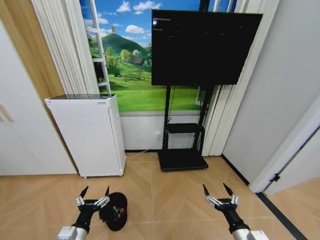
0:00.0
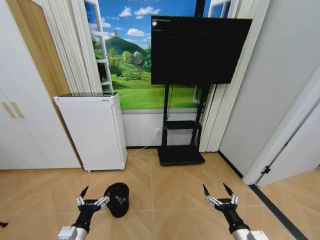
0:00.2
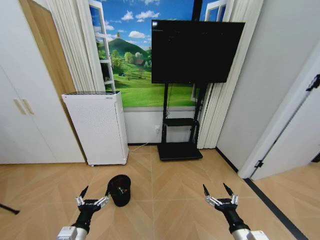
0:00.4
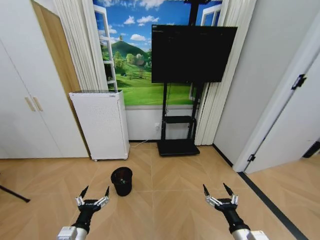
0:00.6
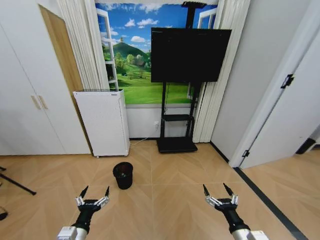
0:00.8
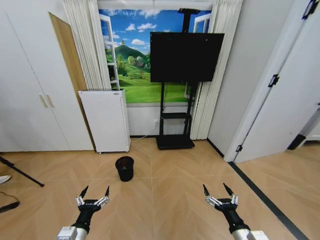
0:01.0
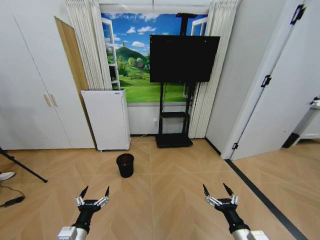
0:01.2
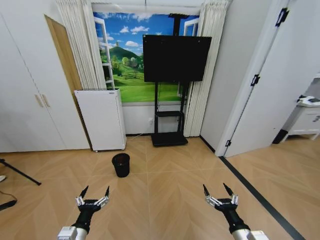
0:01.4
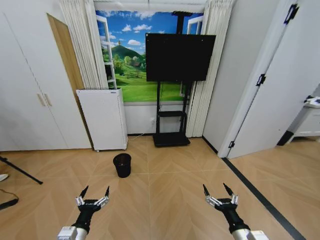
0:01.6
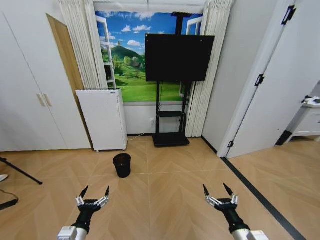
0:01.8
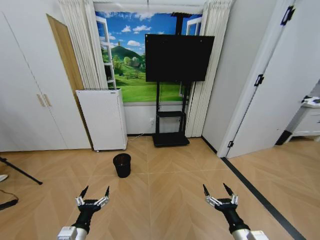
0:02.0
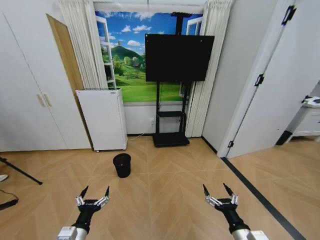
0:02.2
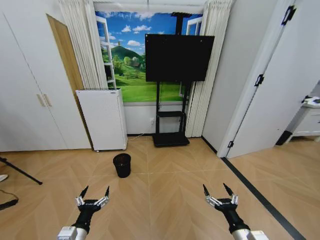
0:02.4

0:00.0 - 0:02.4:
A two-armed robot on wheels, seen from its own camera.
Task of the whole recording: Pick up the trash bin and place the garbage on the floor into it.
0:01.2 - 0:02.4: The two grippers keep their place.

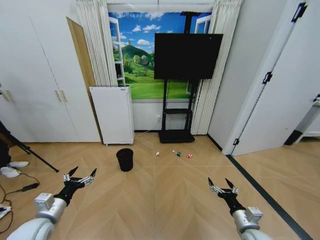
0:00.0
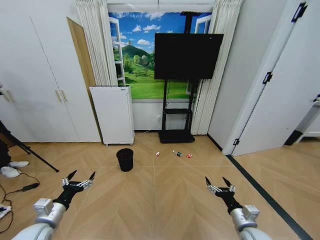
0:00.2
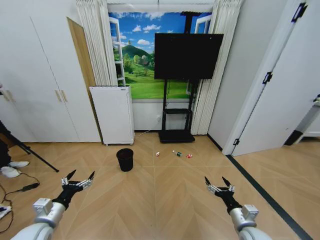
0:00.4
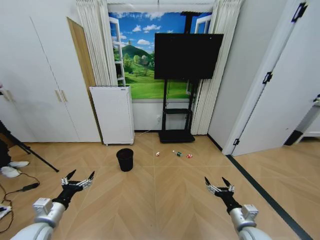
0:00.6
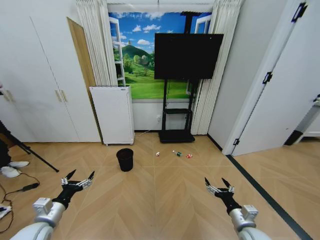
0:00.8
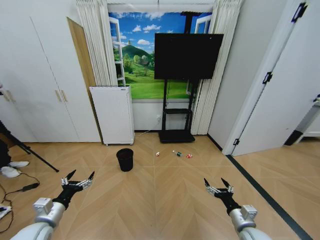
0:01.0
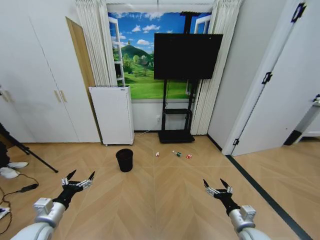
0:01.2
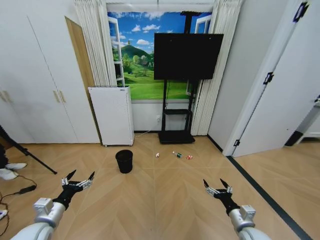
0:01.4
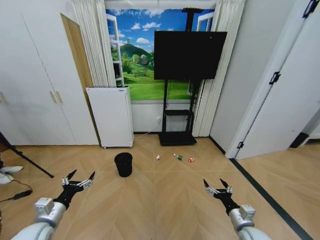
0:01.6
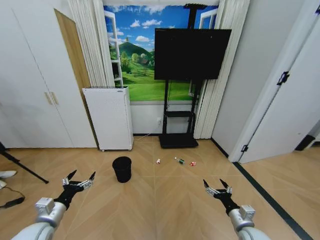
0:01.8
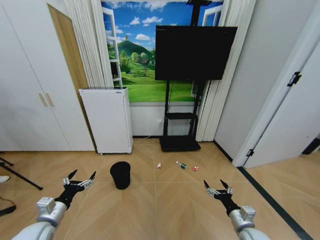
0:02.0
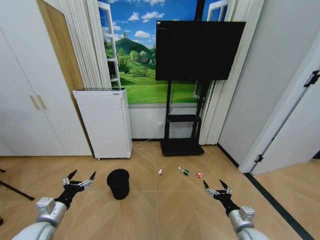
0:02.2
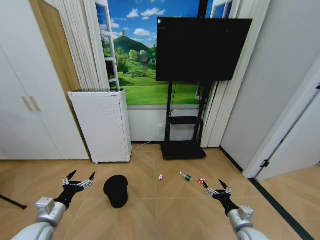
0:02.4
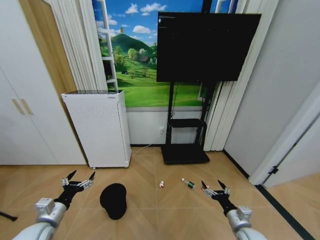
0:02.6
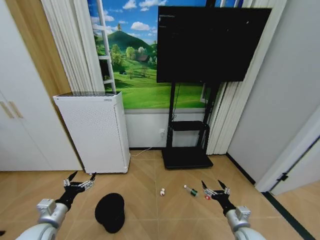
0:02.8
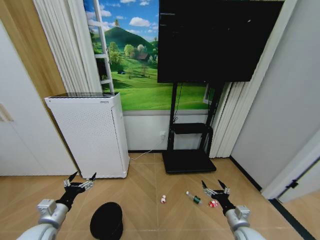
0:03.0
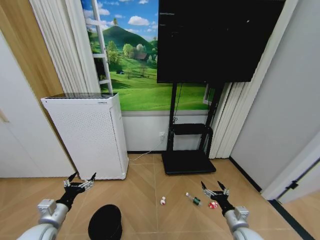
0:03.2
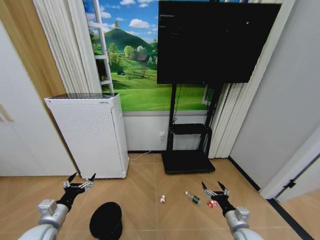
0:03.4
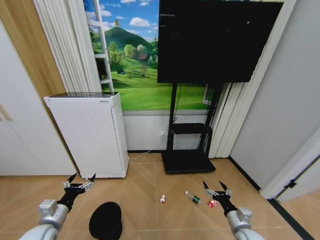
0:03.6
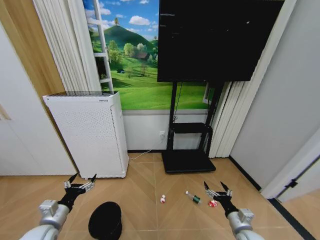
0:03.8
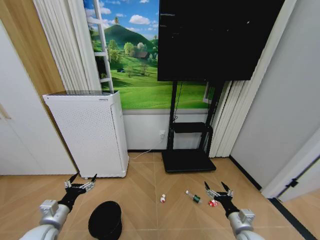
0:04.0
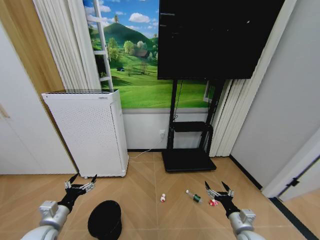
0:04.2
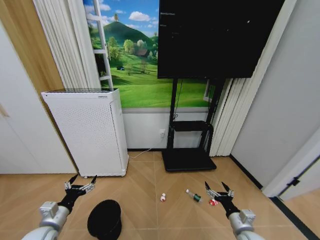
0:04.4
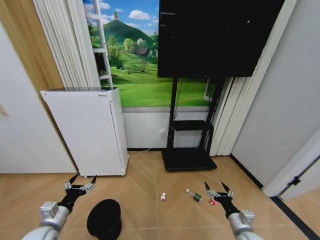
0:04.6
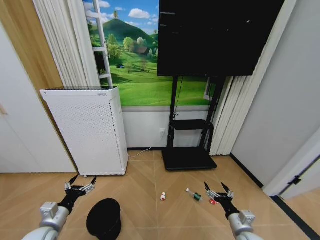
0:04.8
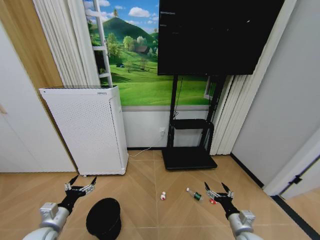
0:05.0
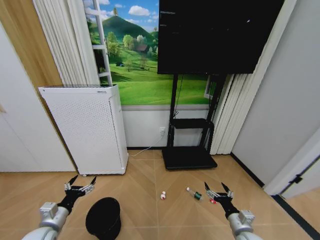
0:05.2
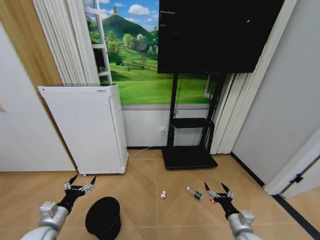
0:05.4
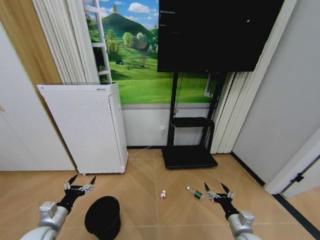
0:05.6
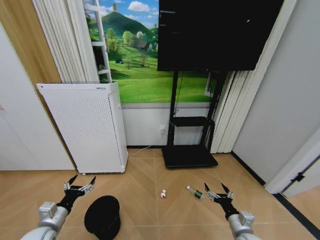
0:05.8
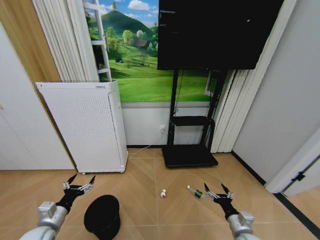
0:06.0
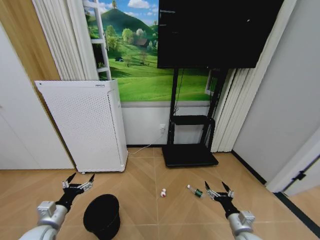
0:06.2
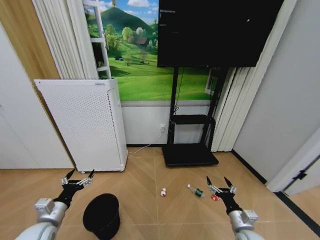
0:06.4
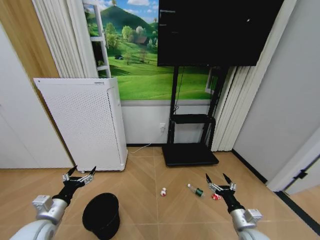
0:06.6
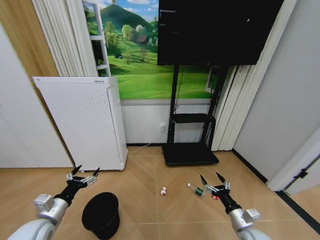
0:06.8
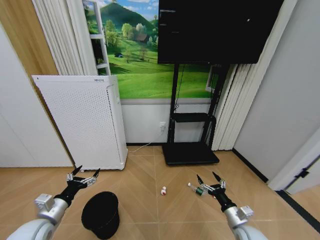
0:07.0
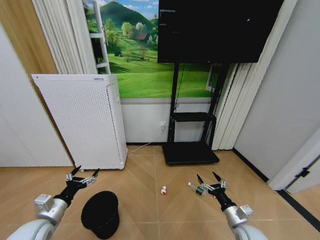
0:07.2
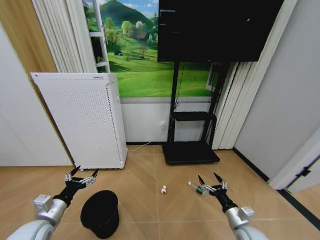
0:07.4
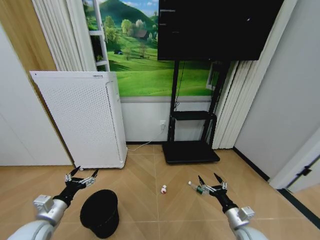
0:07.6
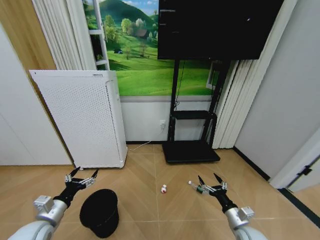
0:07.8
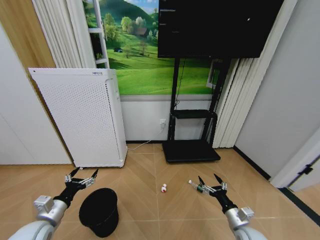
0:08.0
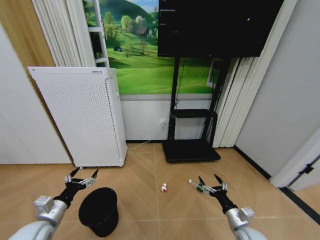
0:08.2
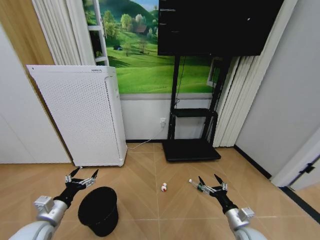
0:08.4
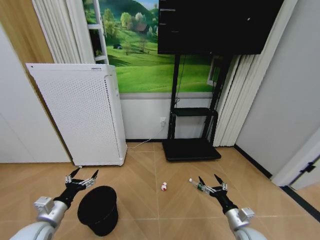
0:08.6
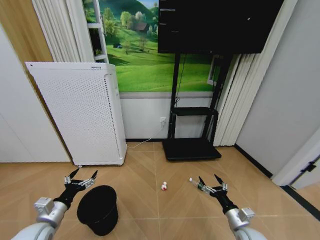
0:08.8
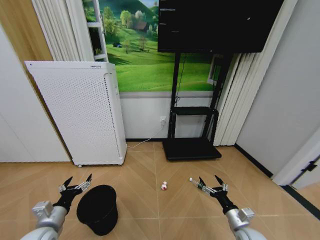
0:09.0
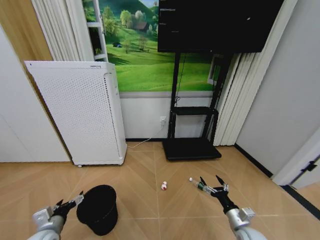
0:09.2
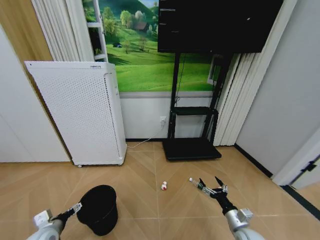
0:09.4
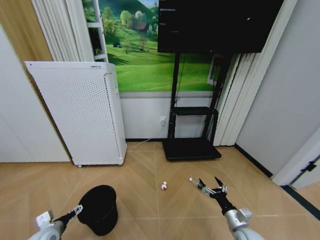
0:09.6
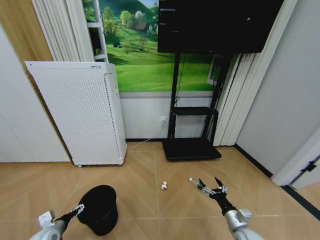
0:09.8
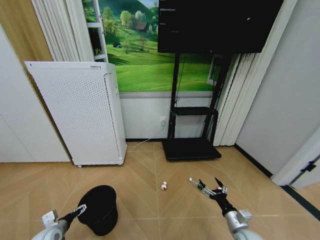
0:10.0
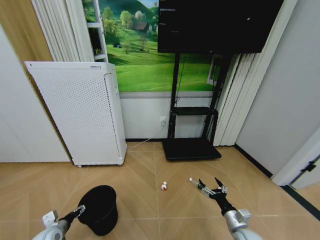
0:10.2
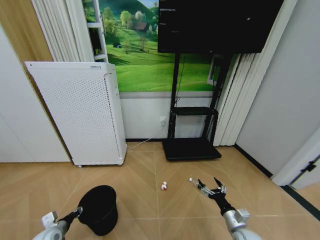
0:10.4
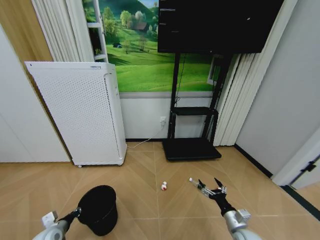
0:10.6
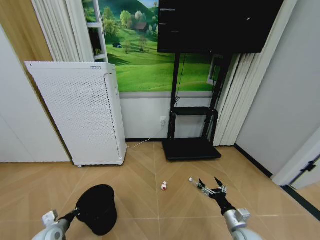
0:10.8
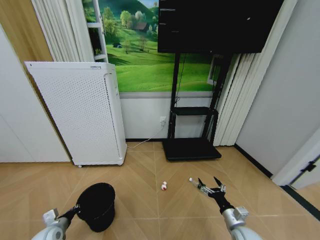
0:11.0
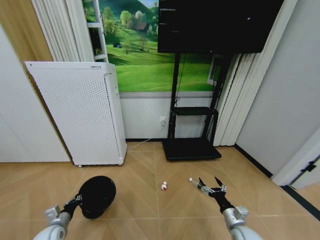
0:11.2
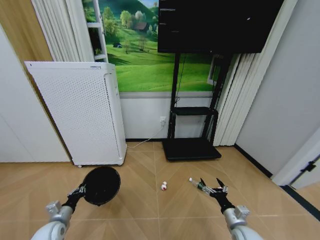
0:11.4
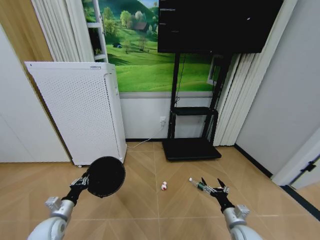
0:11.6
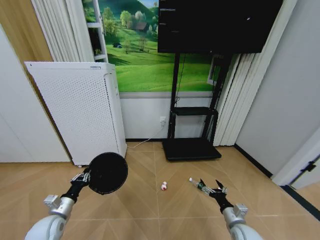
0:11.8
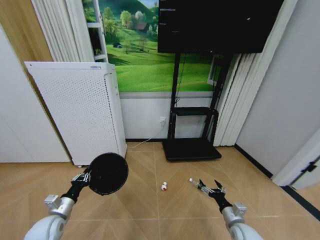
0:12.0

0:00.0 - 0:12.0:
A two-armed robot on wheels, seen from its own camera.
Task of the whole recording: Pick up the trash bin and place the garbage on the floor into it.
0:03.0 - 0:04.4: The two grippers keep their place.
0:04.4 - 0:06.0: Both grippers stay put.
0:06.0 - 0:07.6: The grippers stay close to where they were, moving slightly.
0:09.0 - 0:10.4: The left gripper travels downward and to the left by some 10 cm, and closes its fingers.
0:10.4 - 0:12.0: The left gripper is displaced upward by about 5 cm, and closes its fingers.

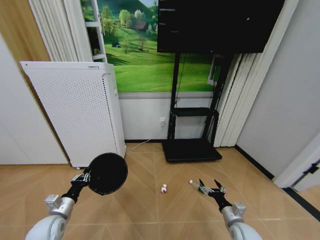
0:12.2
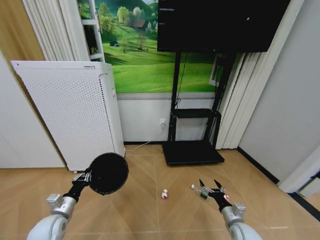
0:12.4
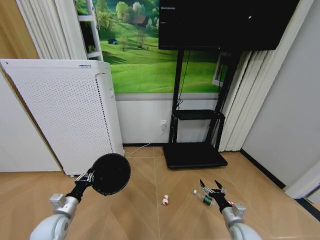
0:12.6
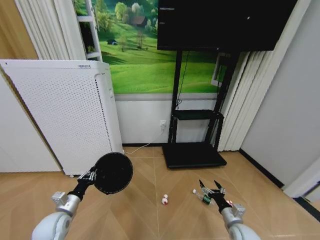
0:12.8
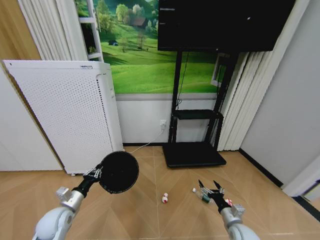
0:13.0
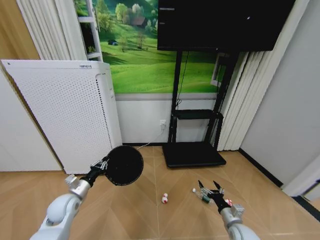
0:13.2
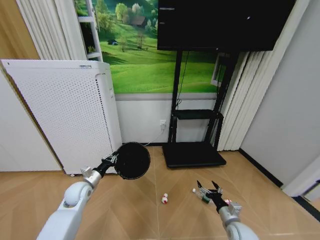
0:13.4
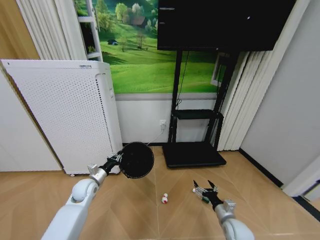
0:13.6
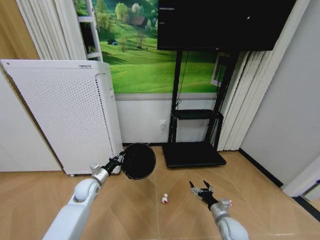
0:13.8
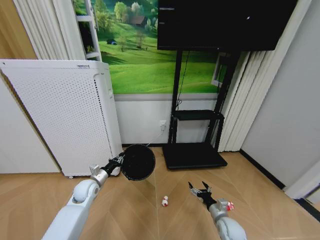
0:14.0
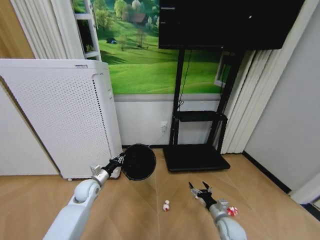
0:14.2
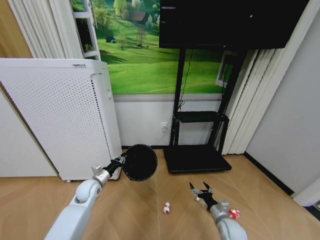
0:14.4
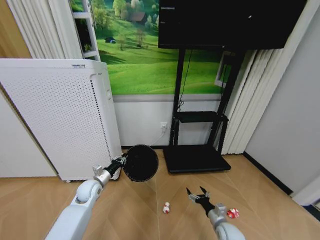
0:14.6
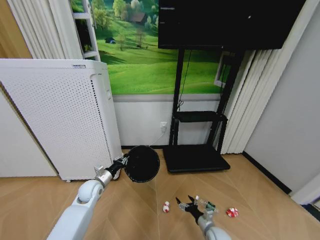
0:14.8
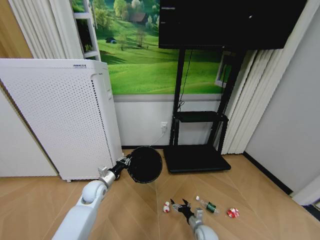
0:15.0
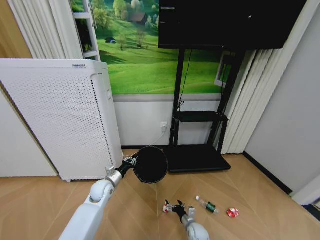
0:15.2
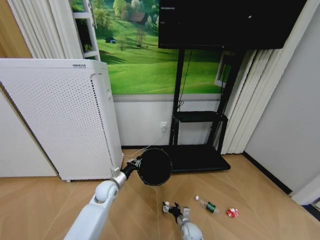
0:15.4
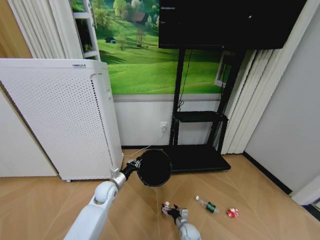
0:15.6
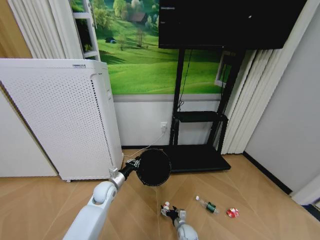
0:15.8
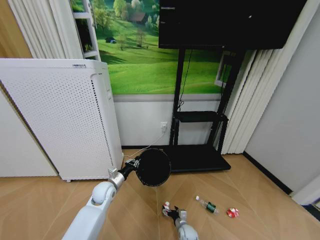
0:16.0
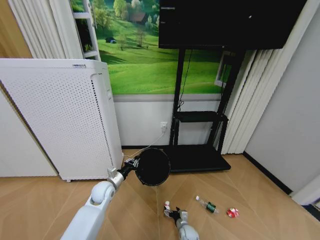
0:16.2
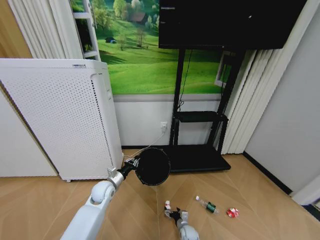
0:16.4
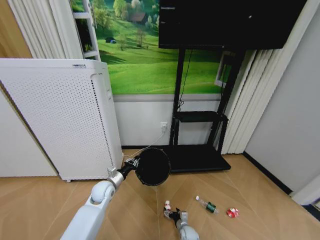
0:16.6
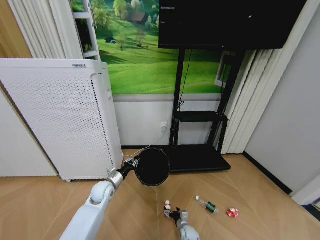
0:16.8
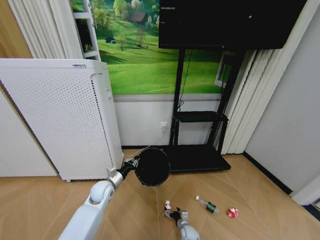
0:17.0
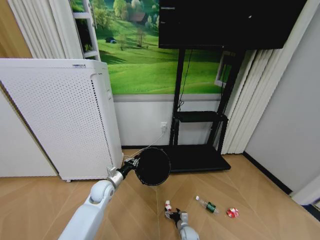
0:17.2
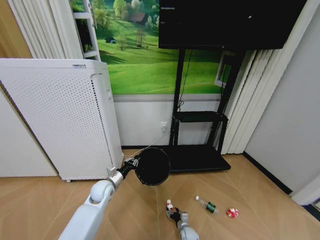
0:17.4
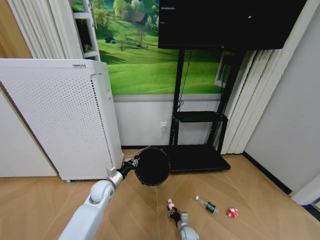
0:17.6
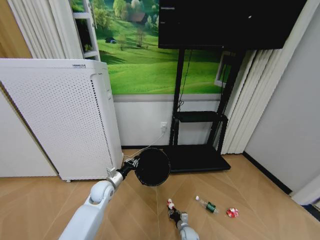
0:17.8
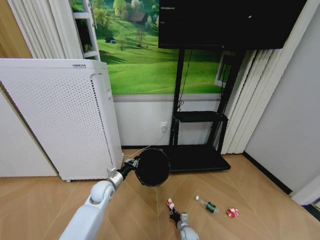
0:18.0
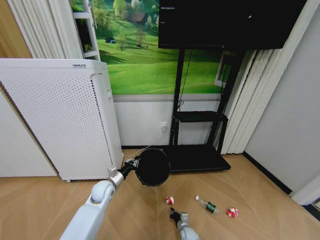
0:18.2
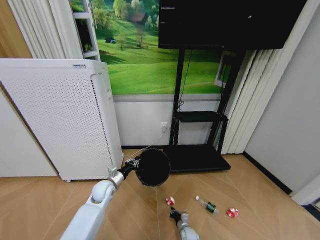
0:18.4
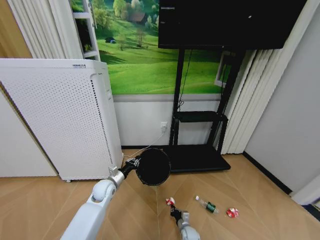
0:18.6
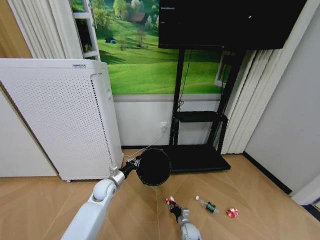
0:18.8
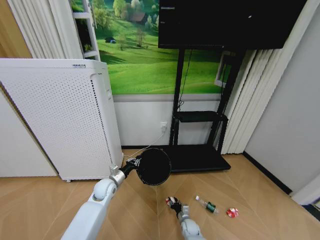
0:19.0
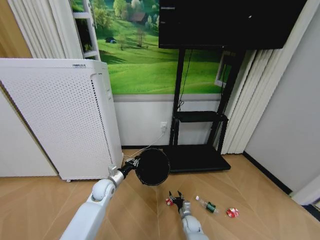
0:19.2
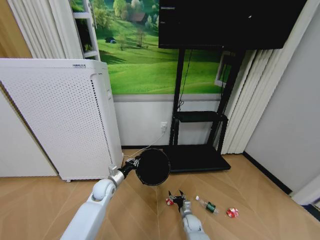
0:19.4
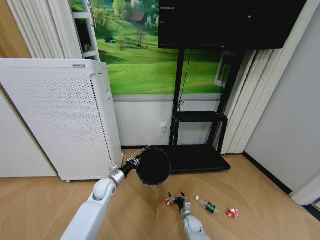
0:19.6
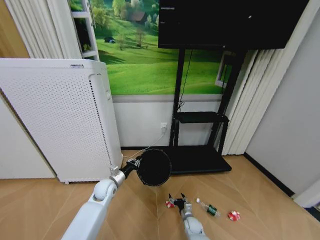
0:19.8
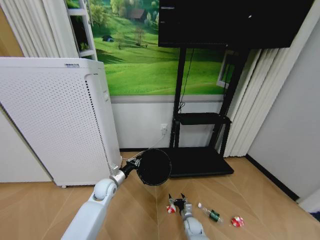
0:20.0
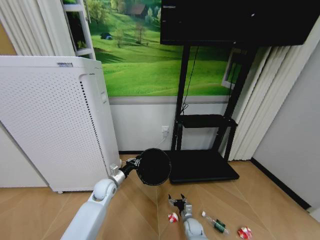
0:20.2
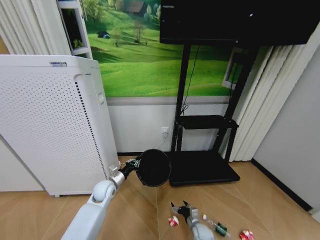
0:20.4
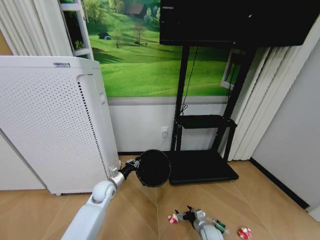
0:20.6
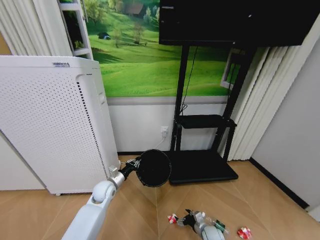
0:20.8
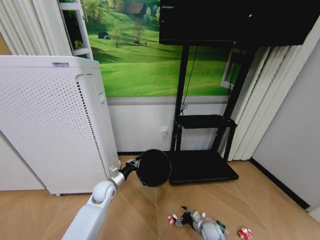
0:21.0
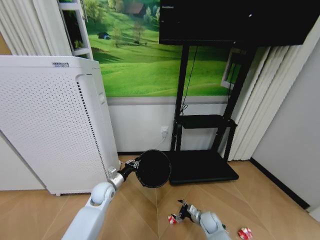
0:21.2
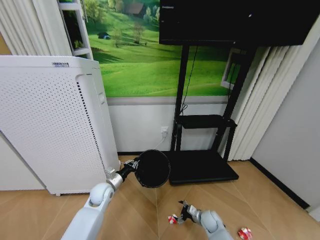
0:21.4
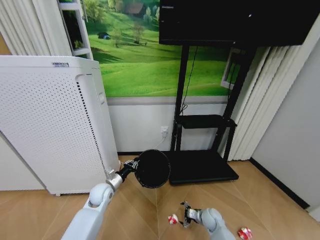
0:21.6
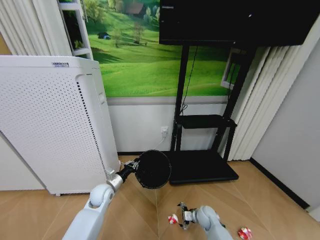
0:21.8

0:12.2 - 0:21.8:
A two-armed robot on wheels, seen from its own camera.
Task of the whole recording: Pick up the trash bin and place the garbage on the floor into it.
0:12.2 - 0:13.8: The left gripper travels forward and to the right by roughly 15 cm.
0:13.8 - 0:15.4: The right gripper travels downward and to the left by approximately 20 cm. The left gripper shifts some 10 cm to the right.
0:15.4 - 0:17.0: The right gripper goes approximately 5 cm downward.
0:17.0 - 0:18.6: The right gripper closes.
0:18.6 - 0:20.2: The right gripper opens its fingers.
0:20.2 - 0:21.8: The right gripper moves upward and to the right, some 10 cm.
